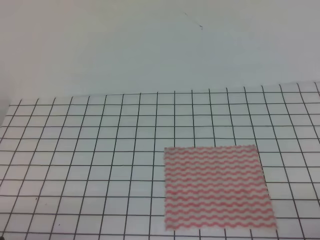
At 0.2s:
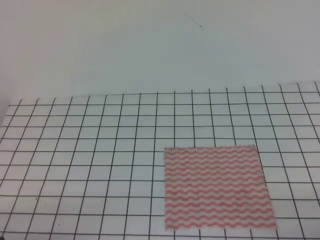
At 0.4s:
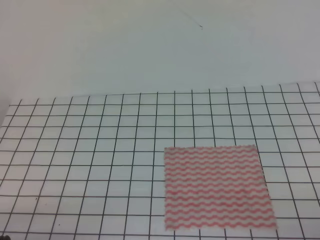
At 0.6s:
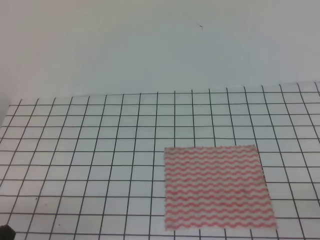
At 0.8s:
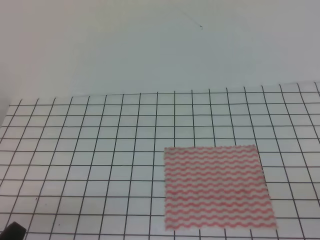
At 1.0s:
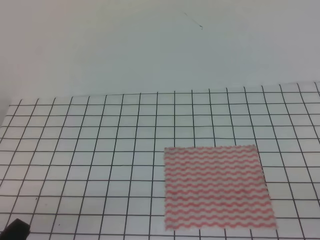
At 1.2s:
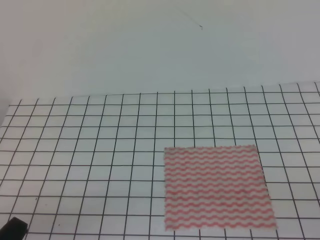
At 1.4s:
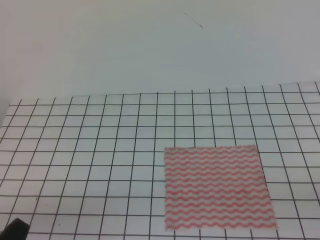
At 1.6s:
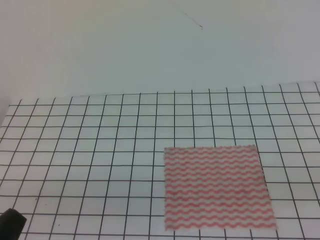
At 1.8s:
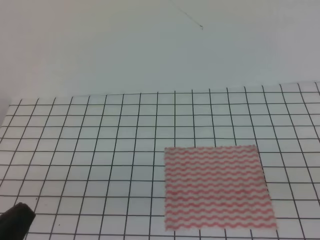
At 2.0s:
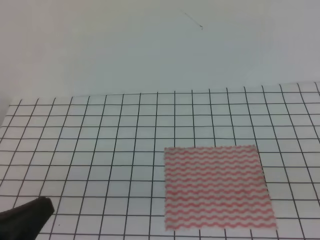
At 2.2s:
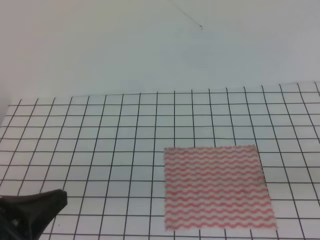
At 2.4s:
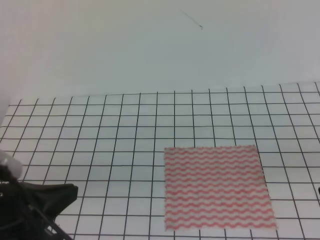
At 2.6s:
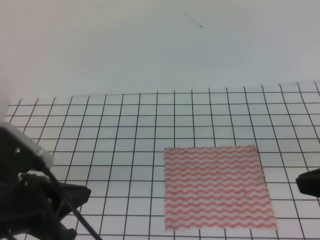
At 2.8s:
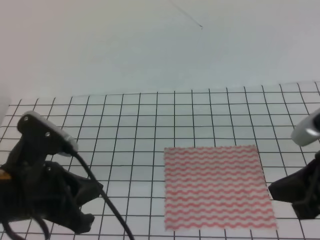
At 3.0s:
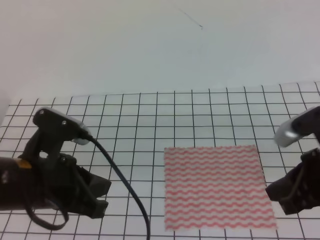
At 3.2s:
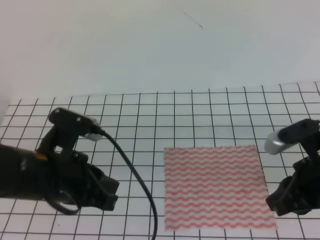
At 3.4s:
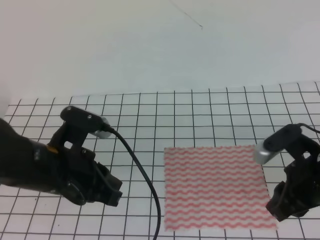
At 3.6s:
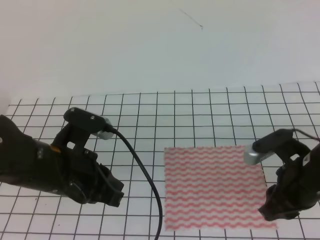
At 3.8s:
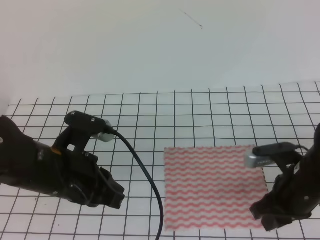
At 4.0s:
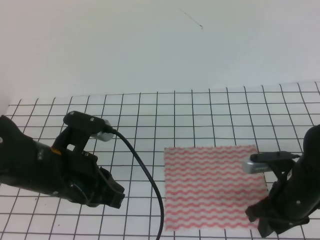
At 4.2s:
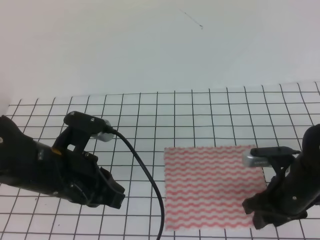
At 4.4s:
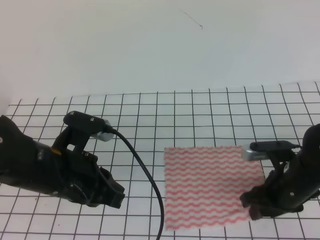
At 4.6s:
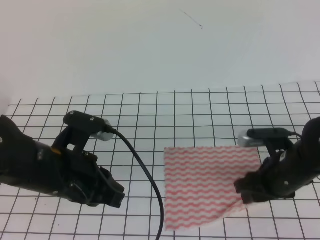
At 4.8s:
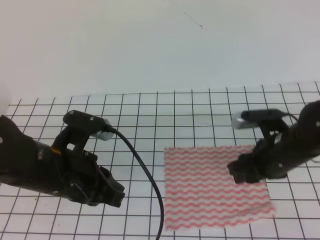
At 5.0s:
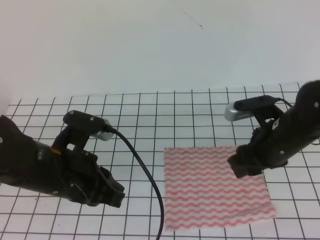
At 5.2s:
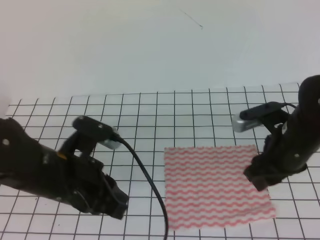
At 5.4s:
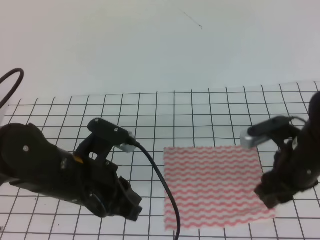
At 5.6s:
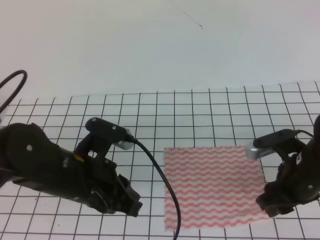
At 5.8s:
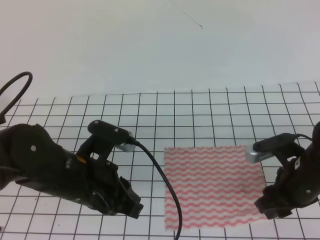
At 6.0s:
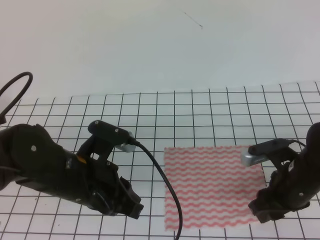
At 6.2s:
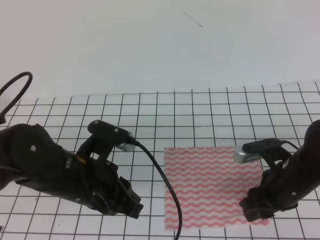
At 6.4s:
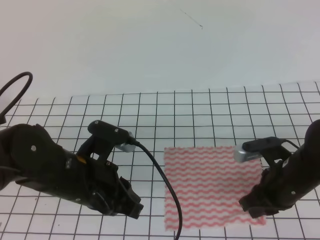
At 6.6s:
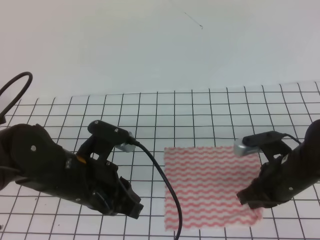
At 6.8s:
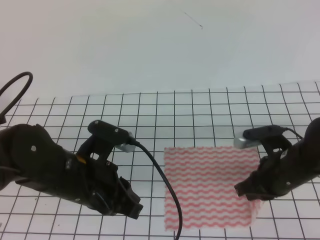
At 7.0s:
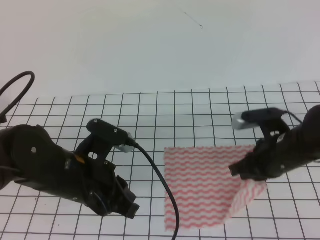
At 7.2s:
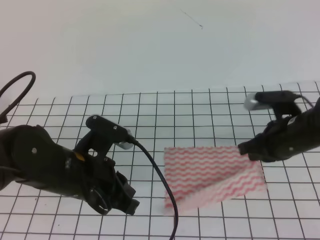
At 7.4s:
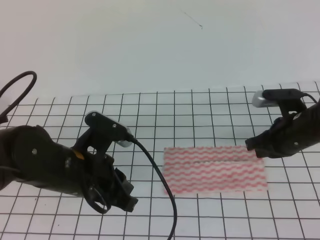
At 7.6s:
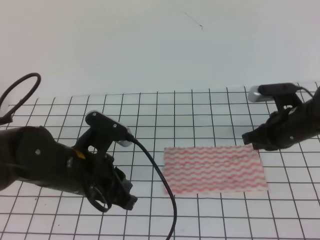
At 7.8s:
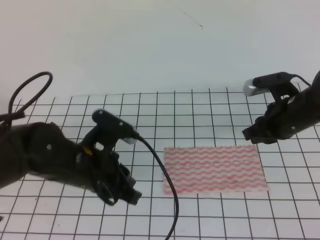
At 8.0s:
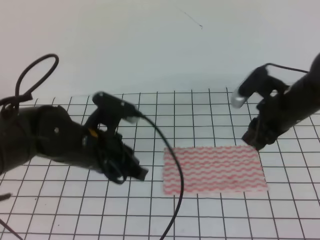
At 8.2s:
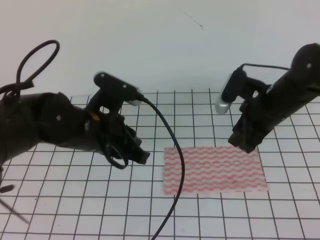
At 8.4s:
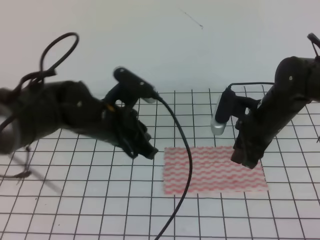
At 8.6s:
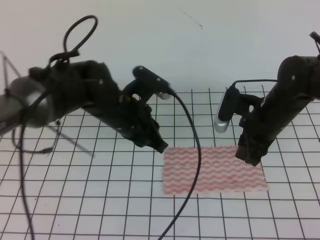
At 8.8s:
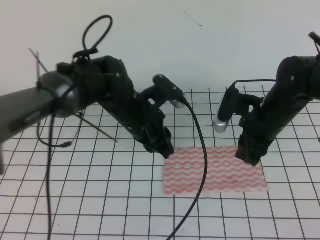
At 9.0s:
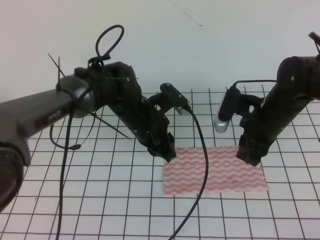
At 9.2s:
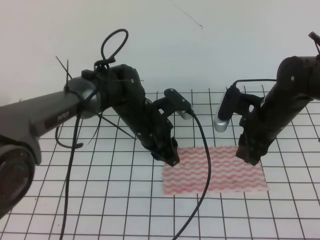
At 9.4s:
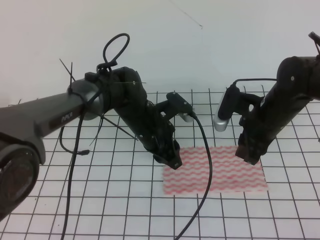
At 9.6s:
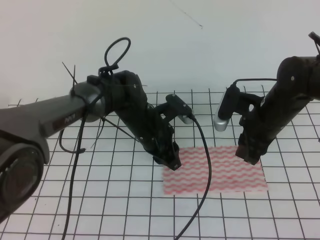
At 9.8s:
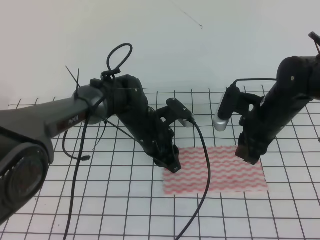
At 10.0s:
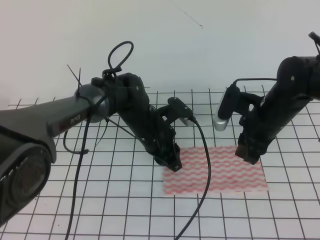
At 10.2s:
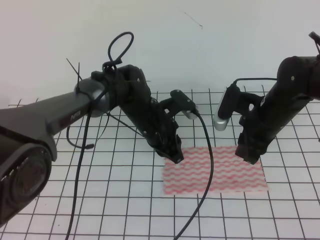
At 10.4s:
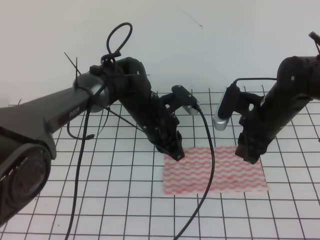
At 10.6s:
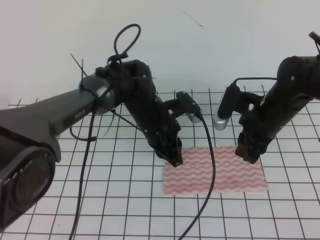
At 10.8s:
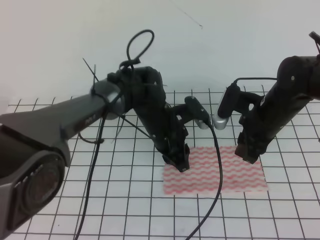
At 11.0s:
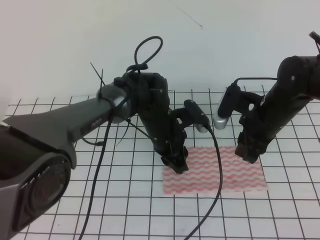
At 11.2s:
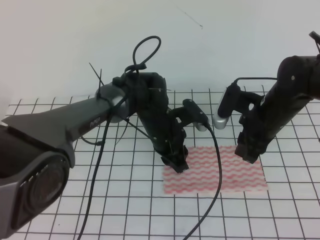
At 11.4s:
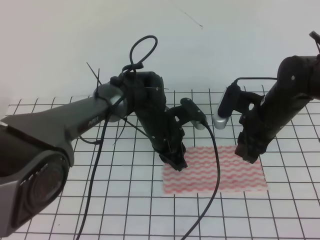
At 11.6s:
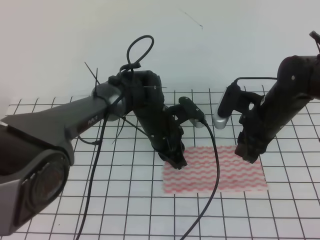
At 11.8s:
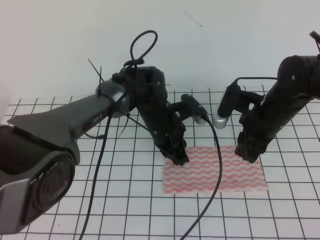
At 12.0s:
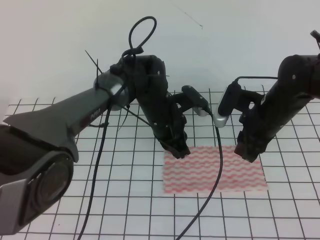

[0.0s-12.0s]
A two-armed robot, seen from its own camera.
0.0s to 1.6s: The left gripper goes some 5 cm upward.
1.6s to 3.0s: The right gripper shifts approximately 20 cm forward and to the left. The left gripper travels forward and to the right by approximately 15 cm.
3.0s to 4.4s: The right gripper heads downward and forward, covering approximately 15 cm, and opens.
6.0s to 7.6s: The right gripper heads forward, covering about 10 cm, and closes up.
7.6s to 9.0s: The left gripper shifts roughly 15 cm forward and to the right, and opens up. Meanwhile the right gripper opens.
9.0s to 10.4s: The left gripper closes.
10.4s to 12.0s: The left gripper opens, then closes once more.

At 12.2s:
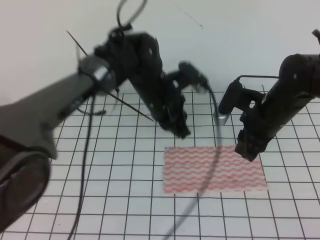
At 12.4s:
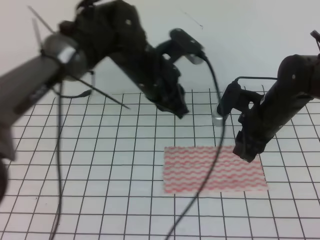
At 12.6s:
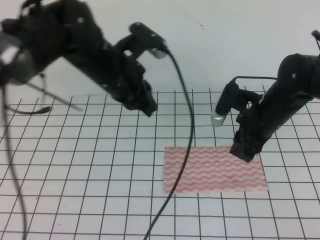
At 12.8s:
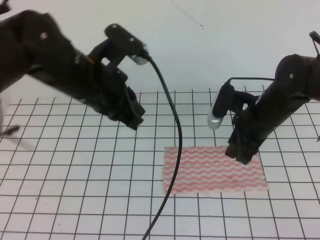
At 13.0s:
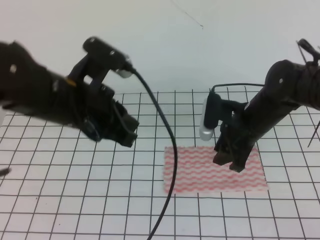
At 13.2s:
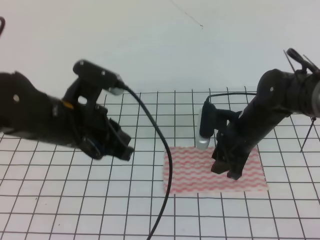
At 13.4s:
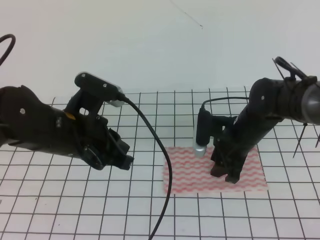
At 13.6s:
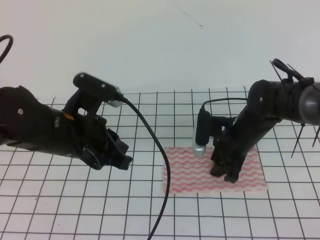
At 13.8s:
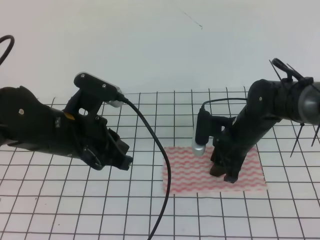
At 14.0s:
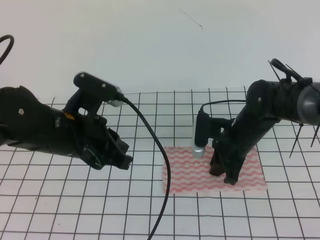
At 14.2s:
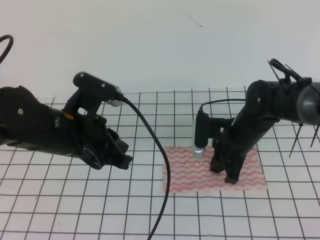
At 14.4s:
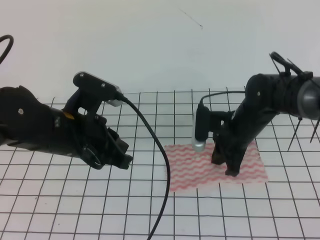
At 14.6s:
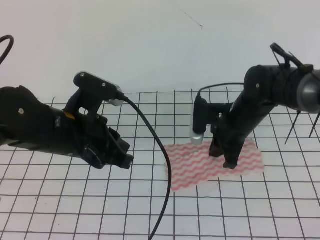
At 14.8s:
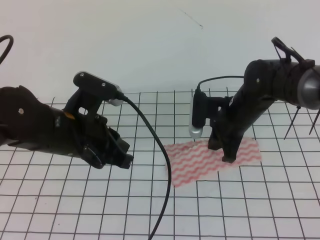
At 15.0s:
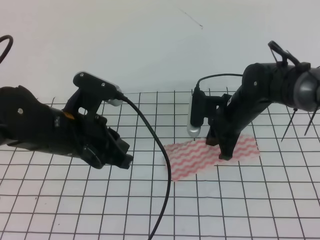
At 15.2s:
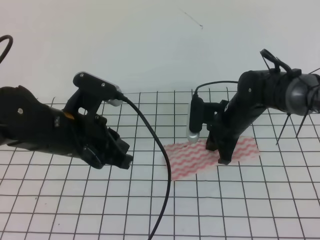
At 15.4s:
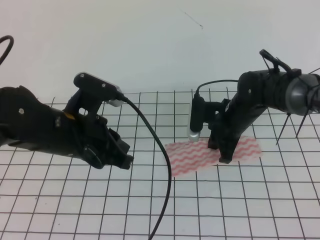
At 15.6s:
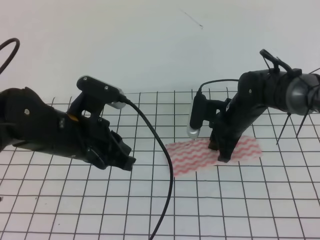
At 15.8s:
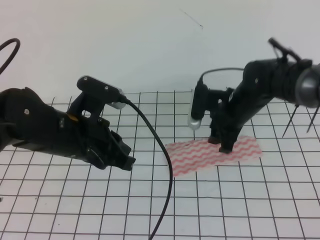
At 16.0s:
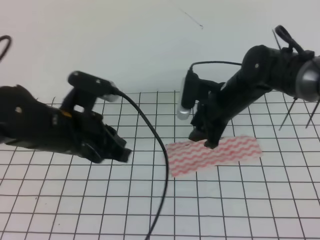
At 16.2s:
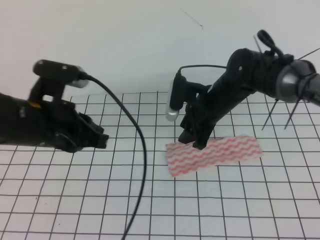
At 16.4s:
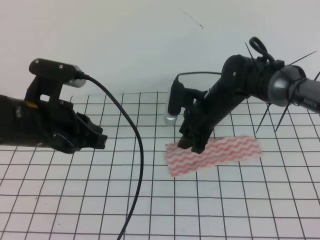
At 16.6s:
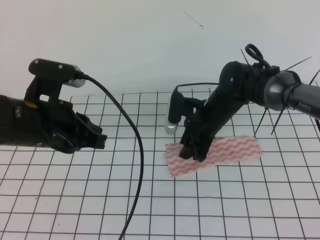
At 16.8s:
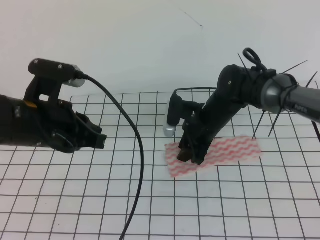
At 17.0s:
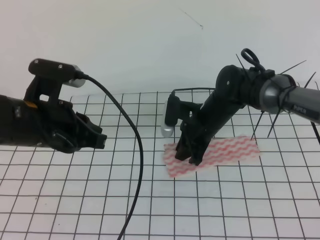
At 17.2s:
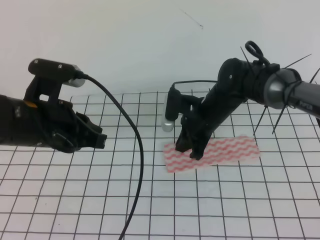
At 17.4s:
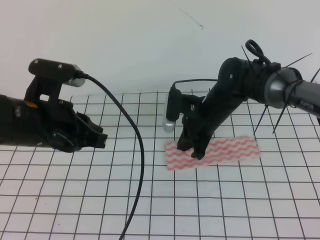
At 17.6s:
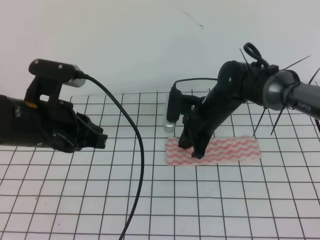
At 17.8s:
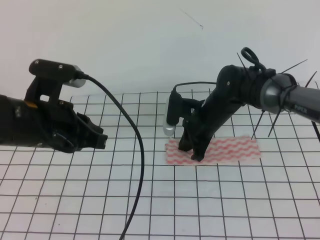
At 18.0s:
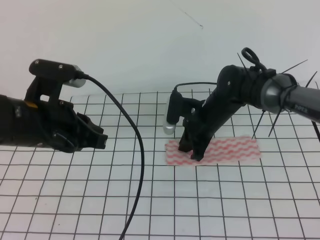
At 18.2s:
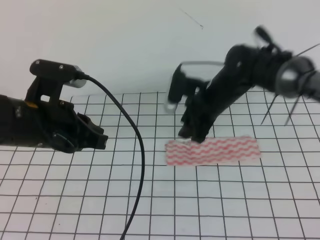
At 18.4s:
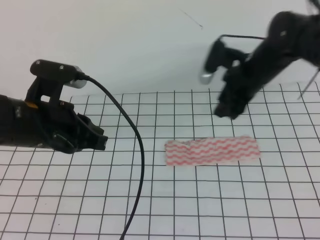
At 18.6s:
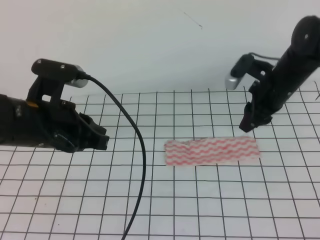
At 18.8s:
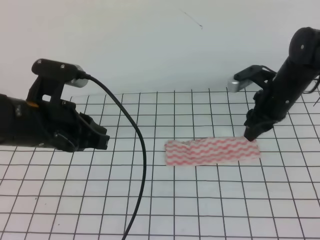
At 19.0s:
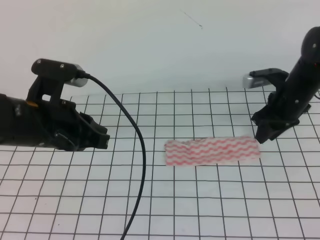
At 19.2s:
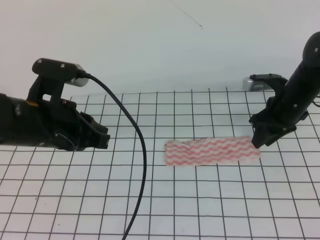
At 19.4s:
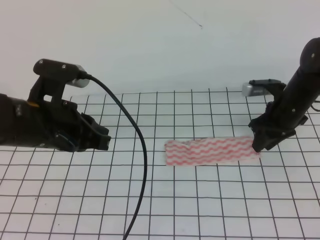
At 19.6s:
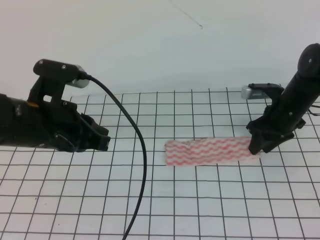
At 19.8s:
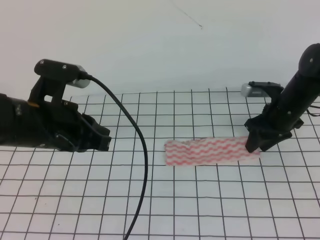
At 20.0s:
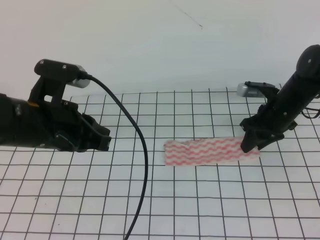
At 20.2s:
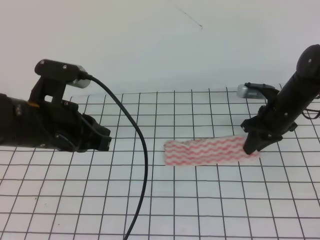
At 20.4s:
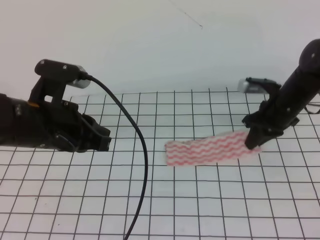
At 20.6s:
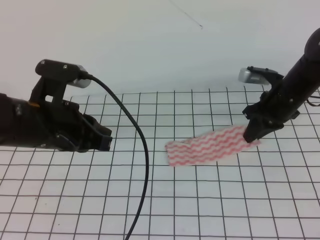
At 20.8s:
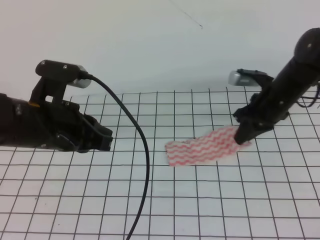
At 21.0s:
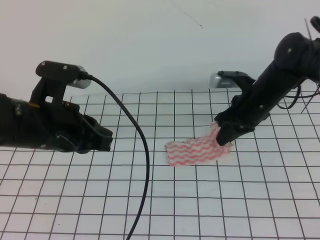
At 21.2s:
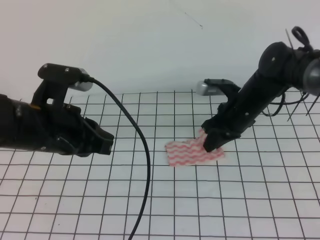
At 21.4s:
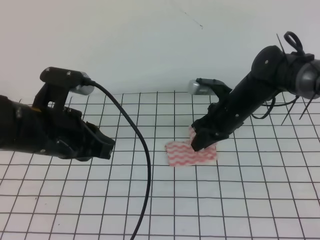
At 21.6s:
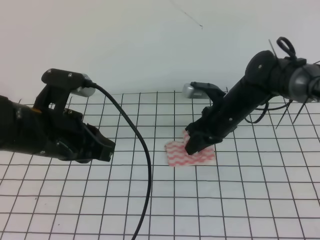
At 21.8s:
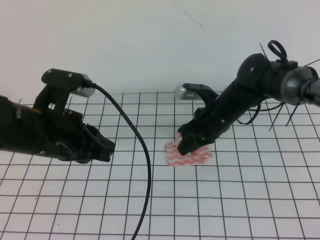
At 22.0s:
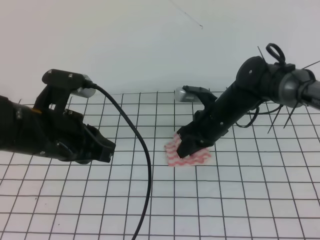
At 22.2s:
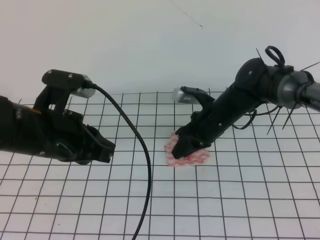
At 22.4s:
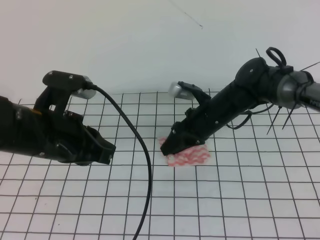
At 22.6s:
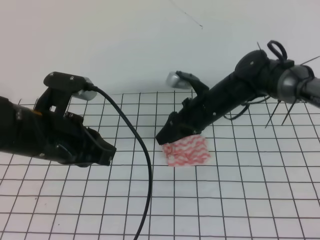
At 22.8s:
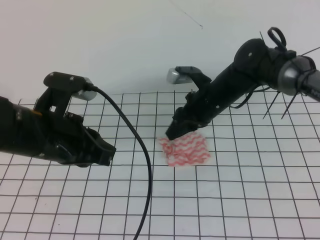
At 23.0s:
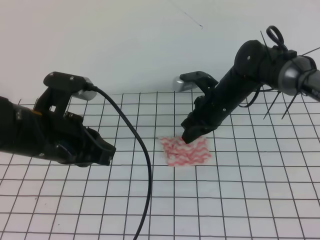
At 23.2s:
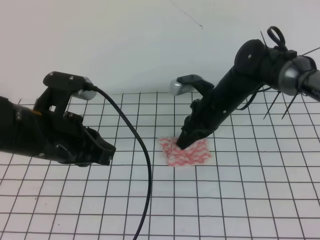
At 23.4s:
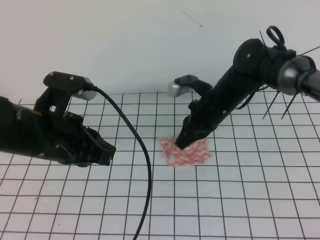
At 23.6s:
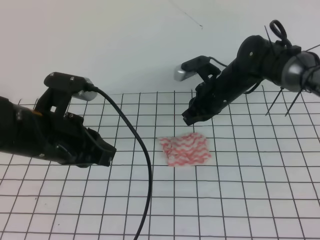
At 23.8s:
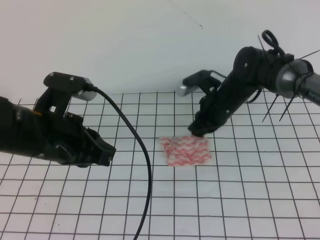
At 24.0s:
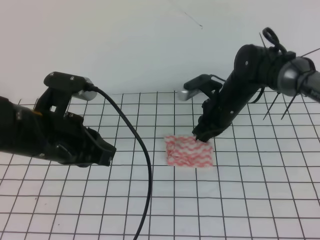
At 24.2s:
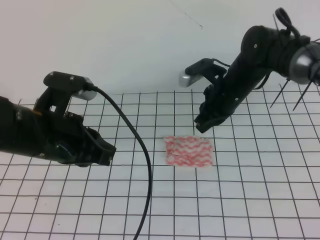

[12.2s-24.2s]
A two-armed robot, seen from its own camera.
12.2s to 13.8s: The left gripper heads to the left and backward, covering about 20 cm. Meanwhile the right gripper heads downward, covering roughly 5 cm.
13.8s to 15.2s: The right gripper closes its fingers.
15.2s to 16.6s: The right gripper opens up.
16.6s to 18.2s: The right gripper closes, then opens again.
18.2s to 19.8s: The right gripper travels to the right by approximately 15 cm.
19.8s to 21.2s: The right gripper shifts approximately 10 cm to the left, and closes up.
21.2s to 22.6s: The right gripper travels to the left by roughly 5 cm, and opens up.
22.6s to 24.2s: The right gripper closes.
